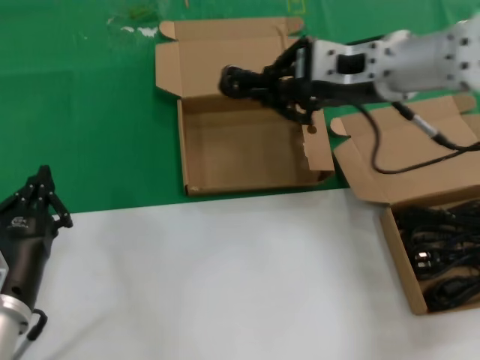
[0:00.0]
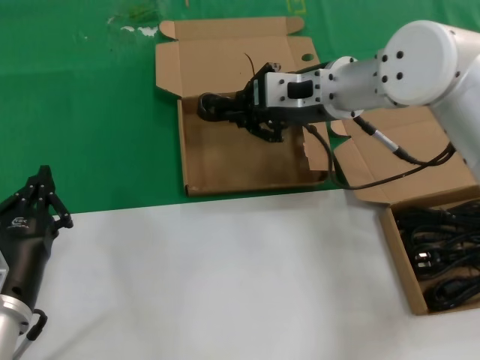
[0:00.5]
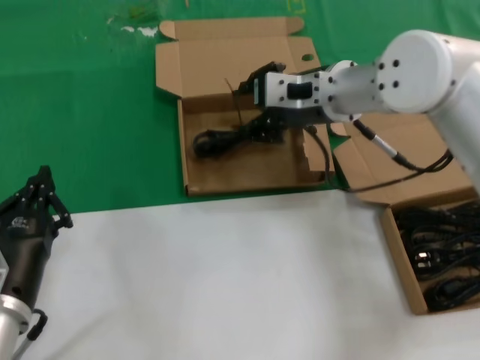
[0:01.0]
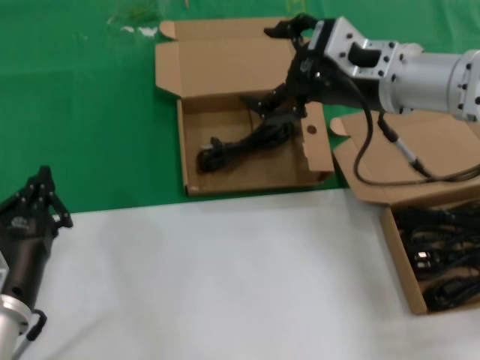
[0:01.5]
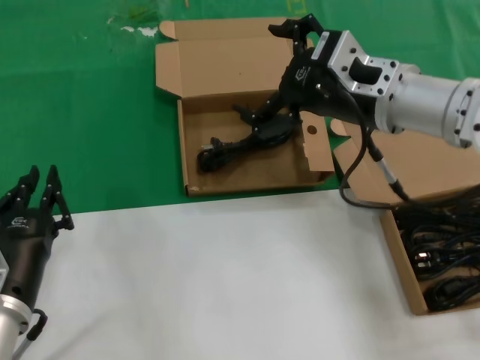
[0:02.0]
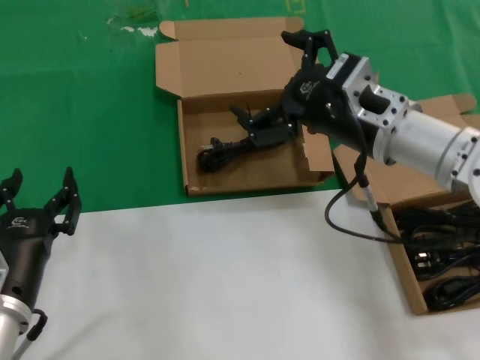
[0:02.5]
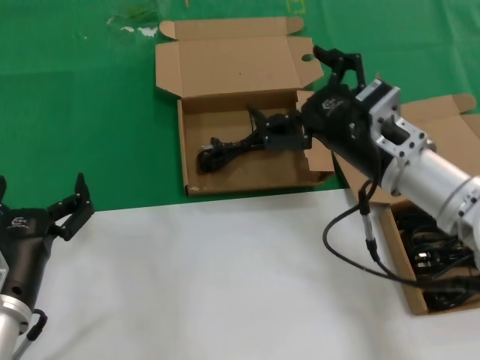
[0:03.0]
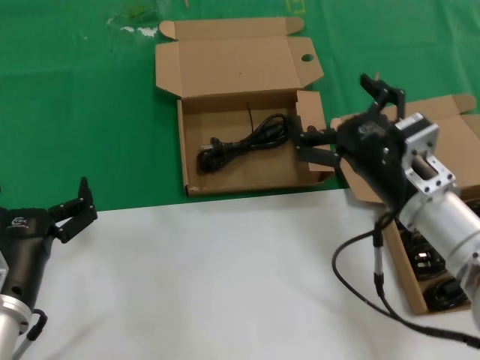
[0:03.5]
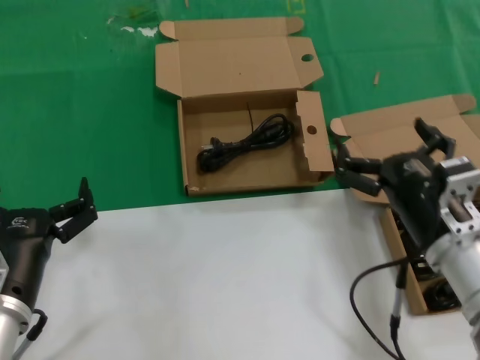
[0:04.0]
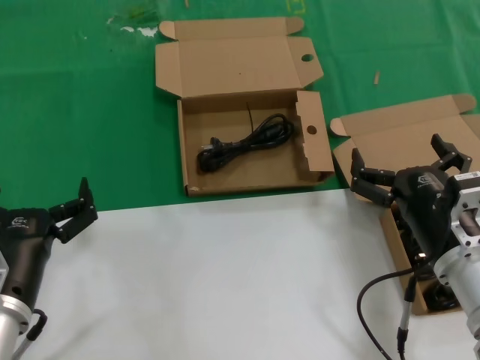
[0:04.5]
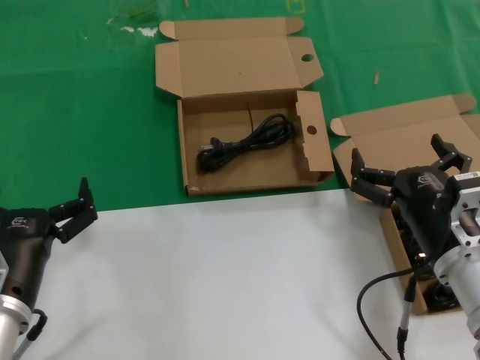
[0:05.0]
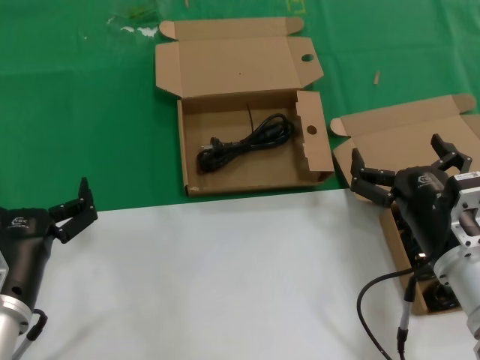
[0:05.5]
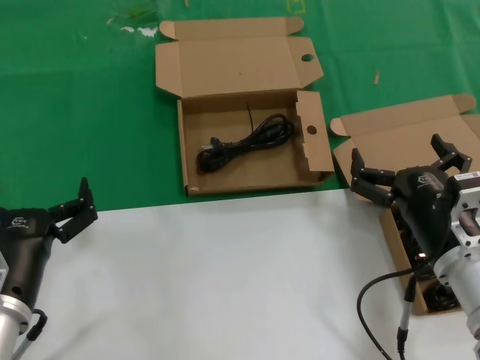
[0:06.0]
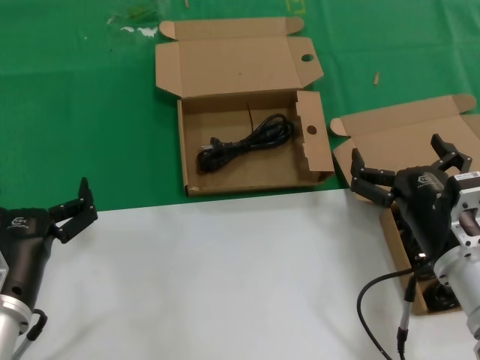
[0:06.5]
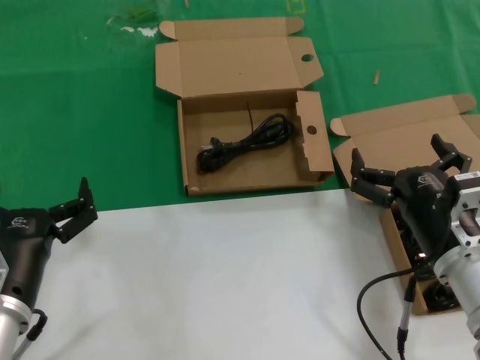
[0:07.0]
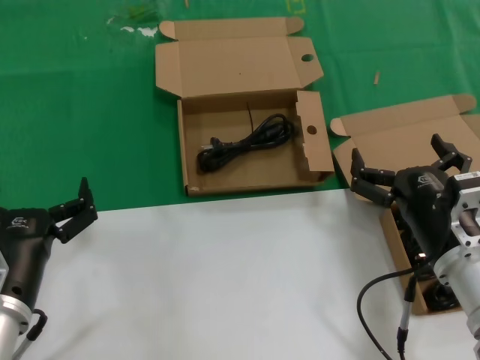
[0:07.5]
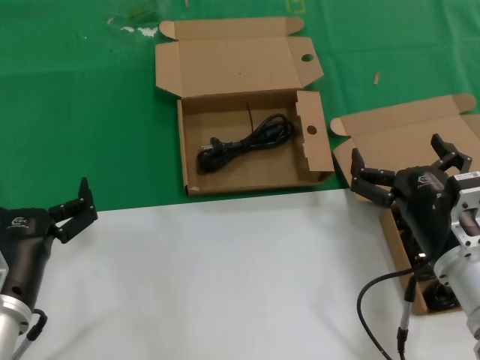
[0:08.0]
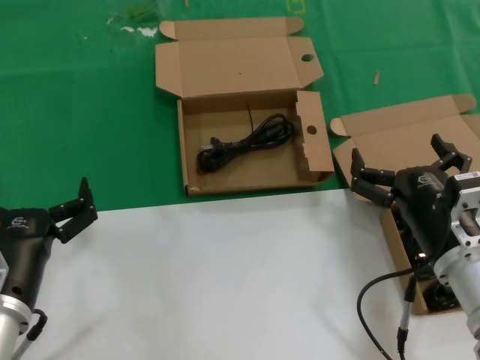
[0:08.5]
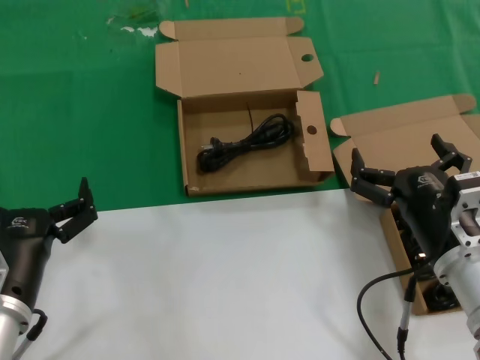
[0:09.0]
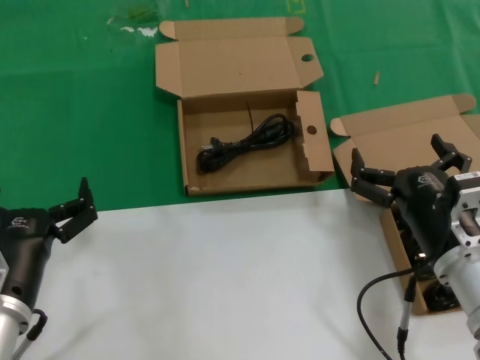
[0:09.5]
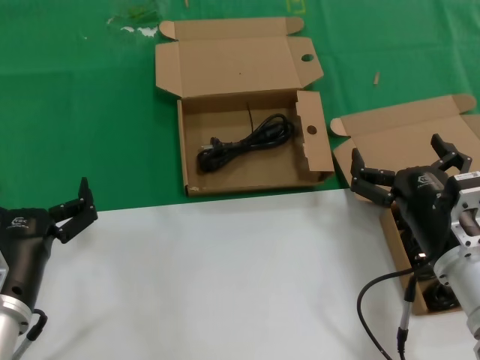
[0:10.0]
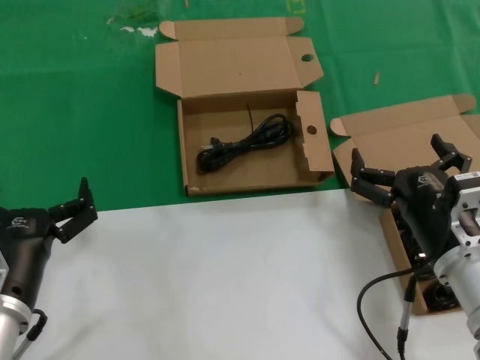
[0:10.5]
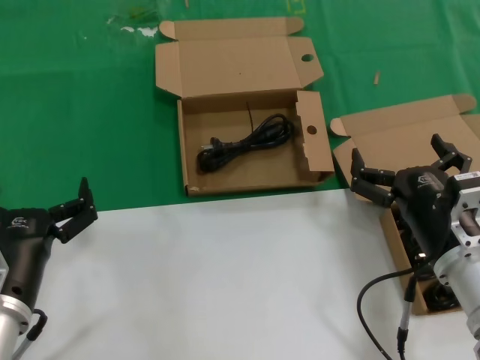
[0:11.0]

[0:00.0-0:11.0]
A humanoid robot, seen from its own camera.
Task of the whole recording: take the parts from the box containing them and put them into an empty box.
0:02.0 to 0:03.5: The right hand is displaced downward and backward by some 15 cm.
0:03.5 to 0:05.5: The right hand heads downward and backward, covering approximately 10 cm.
0:05.5 to 0:11.0: Both hands stay put.

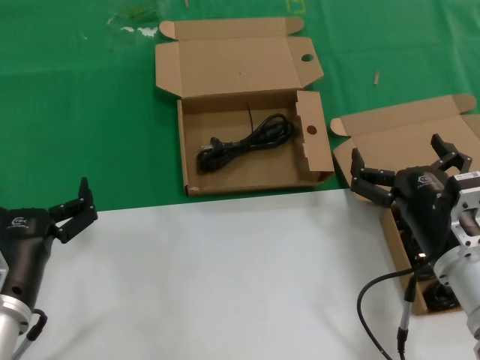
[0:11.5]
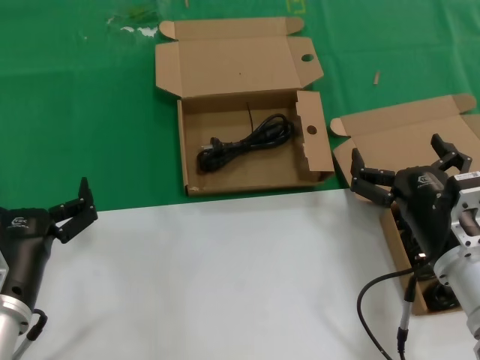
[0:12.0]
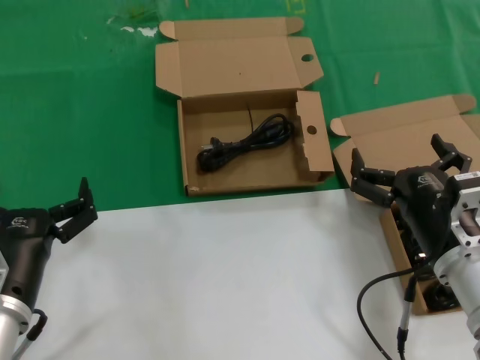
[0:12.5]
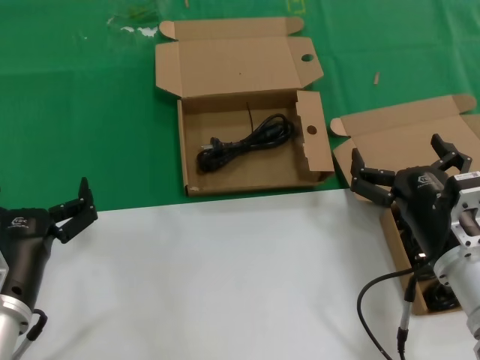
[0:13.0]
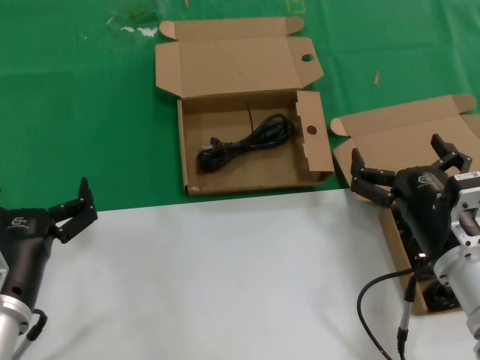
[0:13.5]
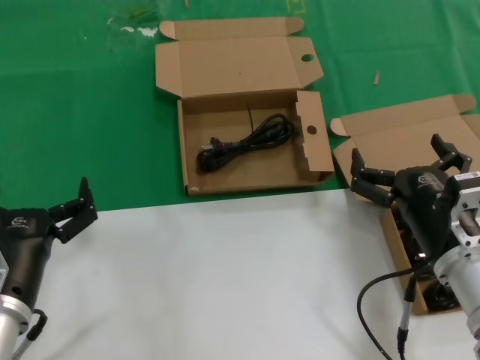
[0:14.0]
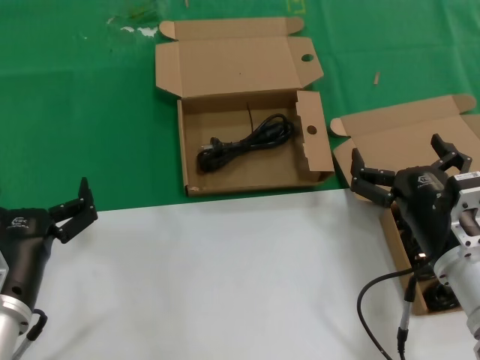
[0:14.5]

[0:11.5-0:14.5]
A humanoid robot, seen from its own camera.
Task of the whole recording: take the parts from the box containing them and put them into an empty box.
0:11.5 to 0:14.5: Both hands stay put.
